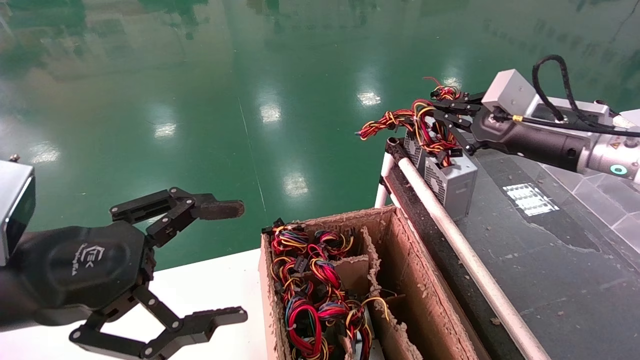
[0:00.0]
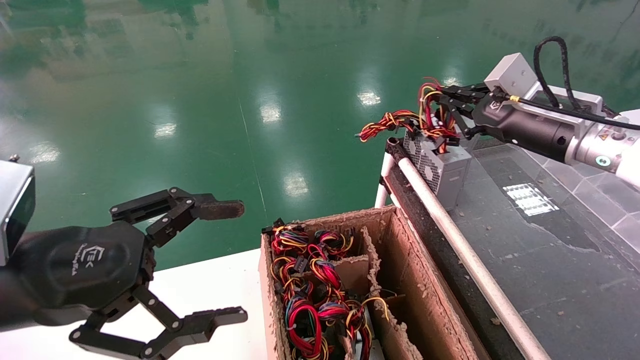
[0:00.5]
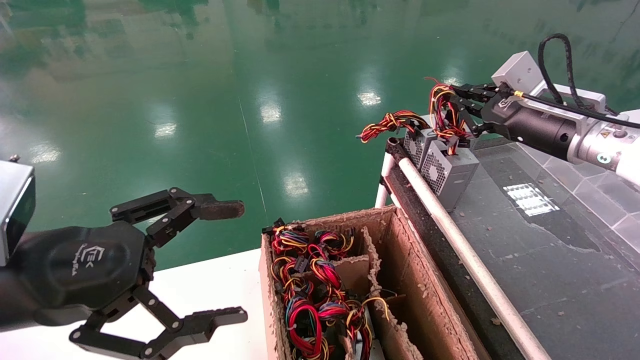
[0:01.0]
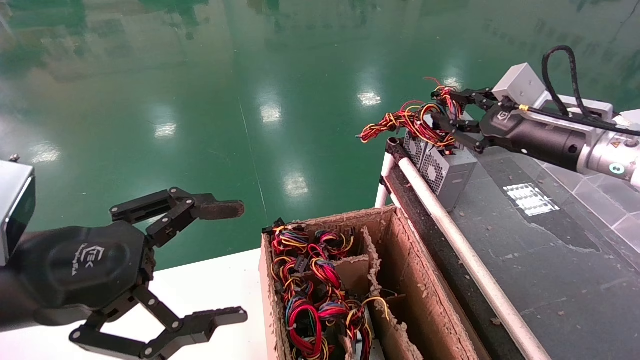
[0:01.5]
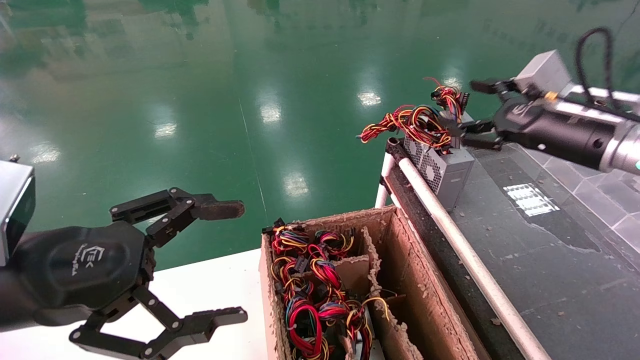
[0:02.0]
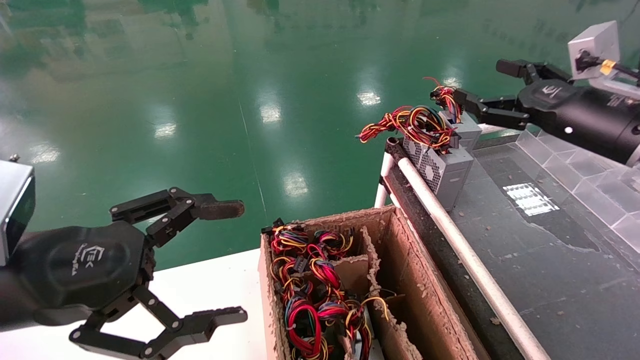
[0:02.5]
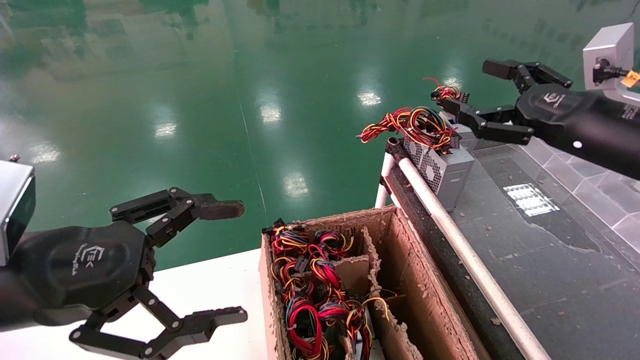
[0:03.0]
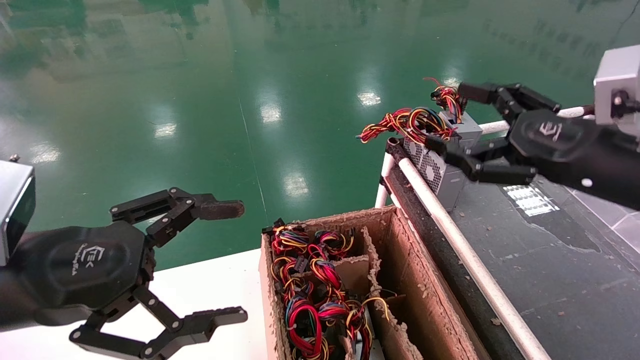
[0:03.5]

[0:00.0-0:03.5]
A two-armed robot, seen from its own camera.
0:00.0 to 0:02.0: The right gripper opens its fingers.
0:02.0 to 0:03.5: The right gripper goes some 10 cm backward.

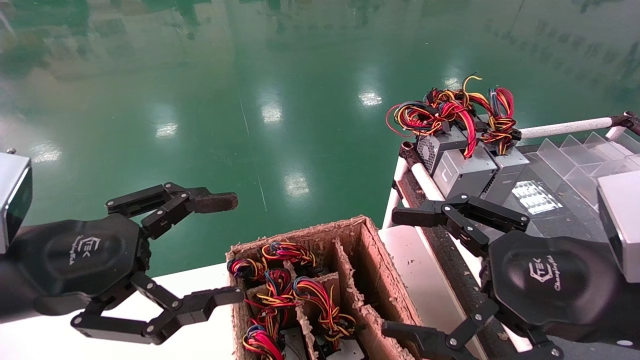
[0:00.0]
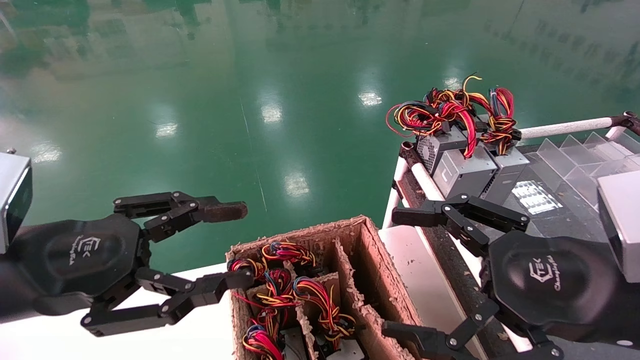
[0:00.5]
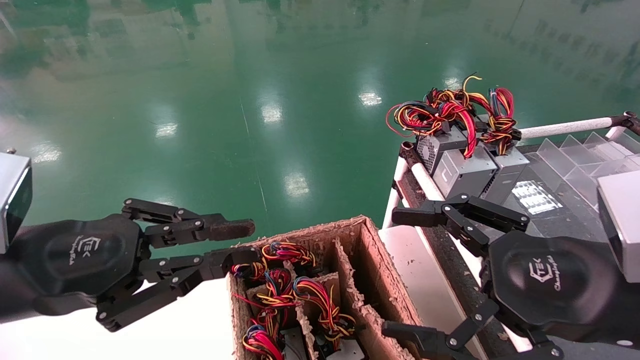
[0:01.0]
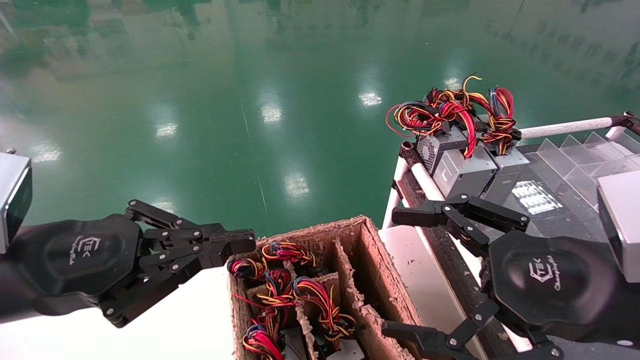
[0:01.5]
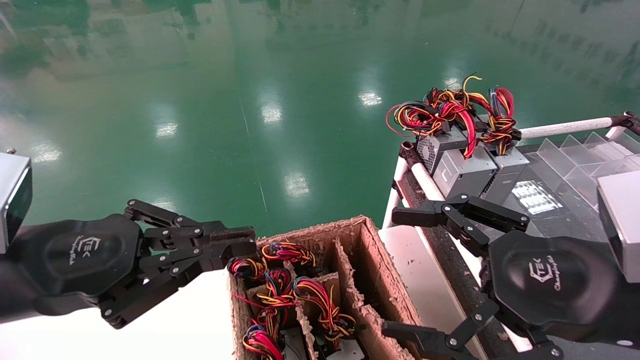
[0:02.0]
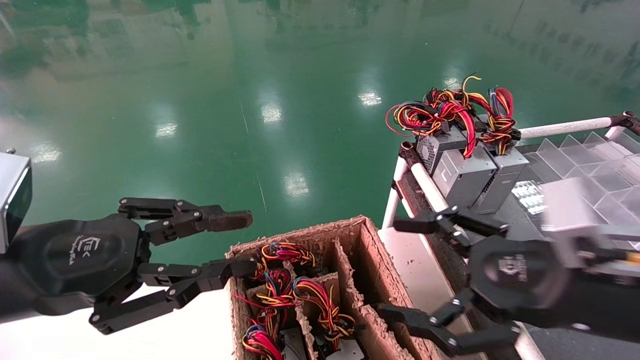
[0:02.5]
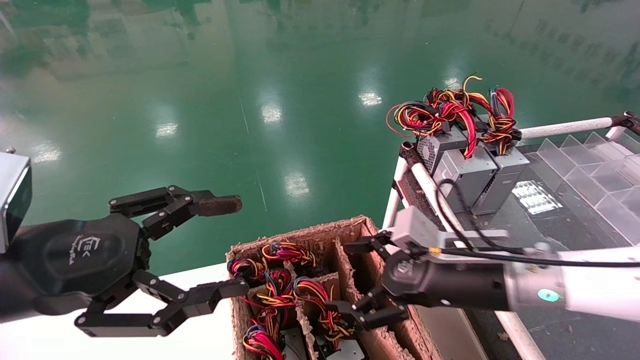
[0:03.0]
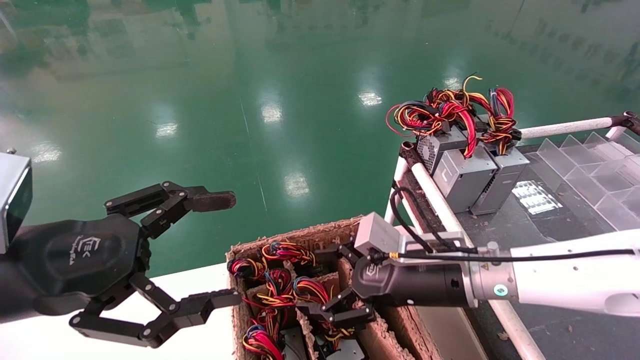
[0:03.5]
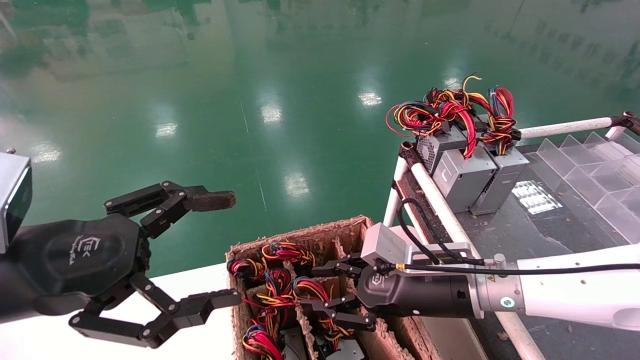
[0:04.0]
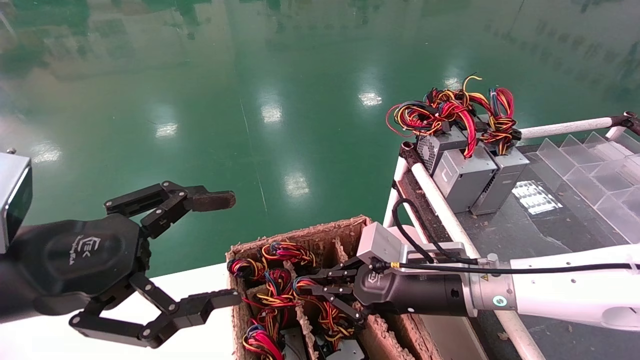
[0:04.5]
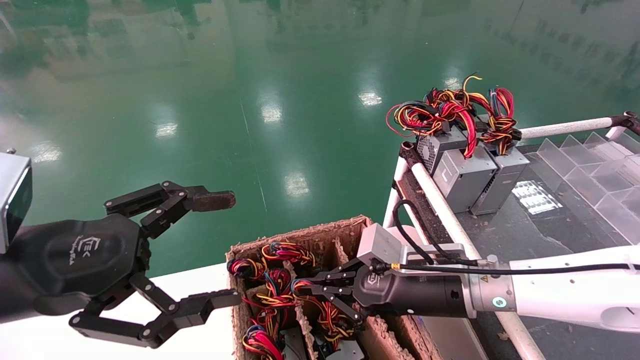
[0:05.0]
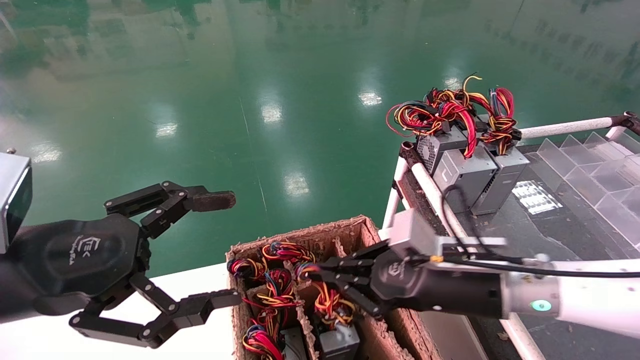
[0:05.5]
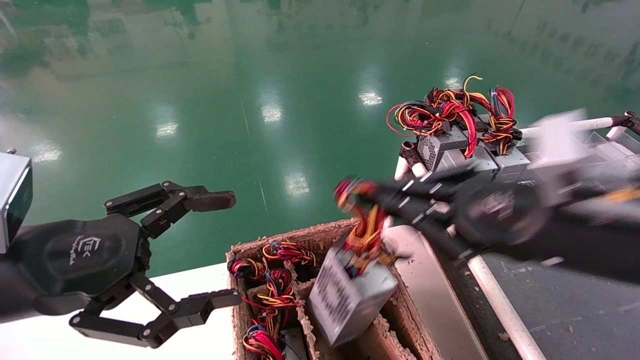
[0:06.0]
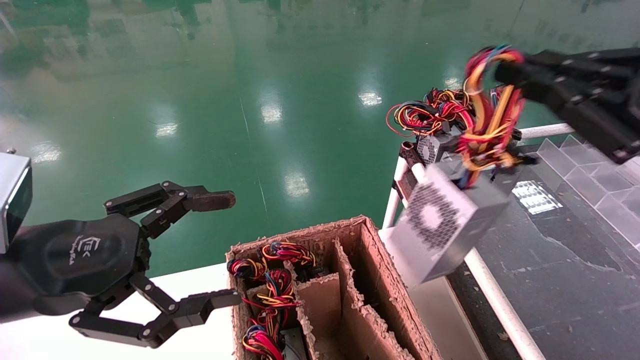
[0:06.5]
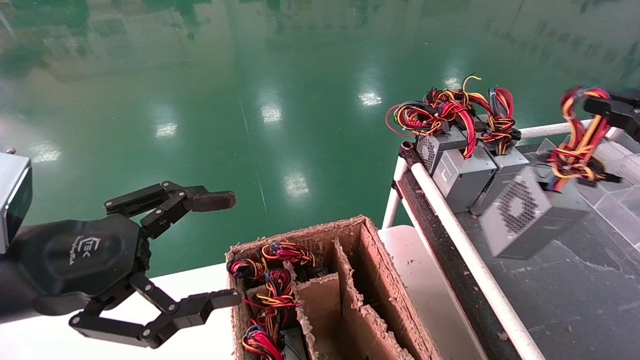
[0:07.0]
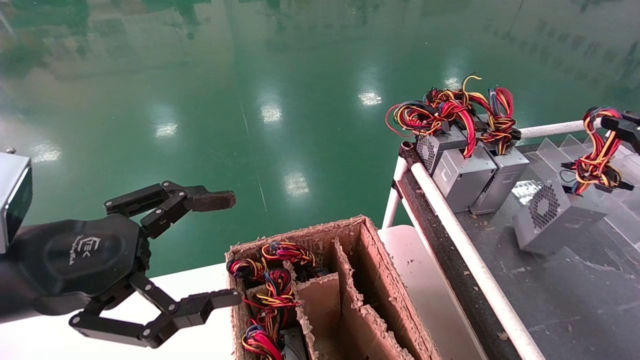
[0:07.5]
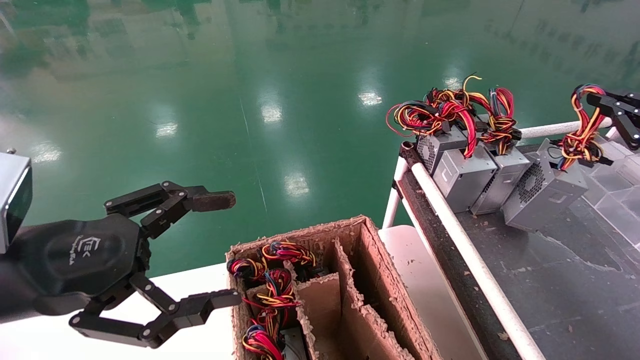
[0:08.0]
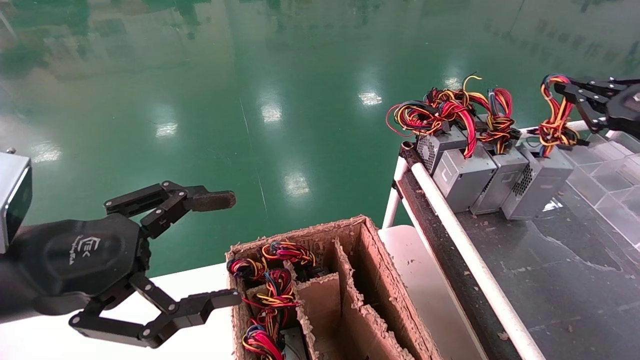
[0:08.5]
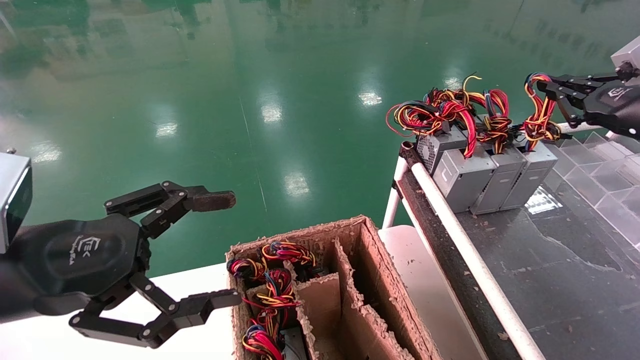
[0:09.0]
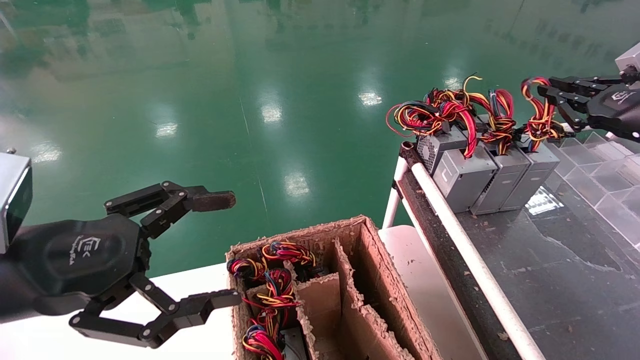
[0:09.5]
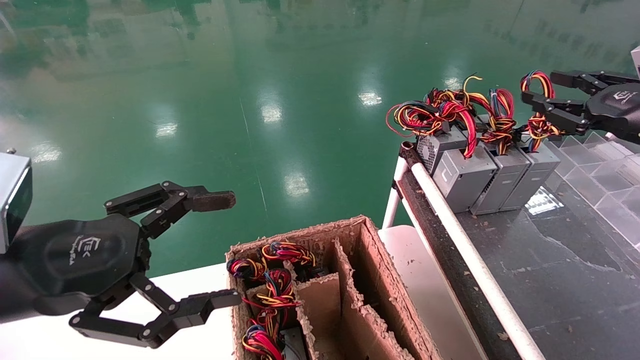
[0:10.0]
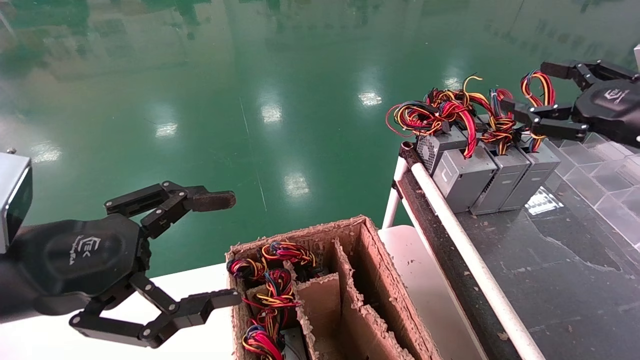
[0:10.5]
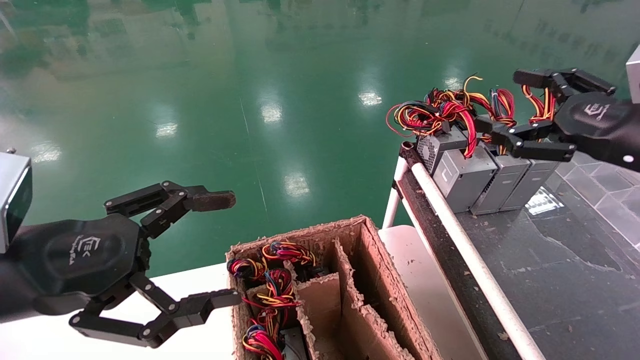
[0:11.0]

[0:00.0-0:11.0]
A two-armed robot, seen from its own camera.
Step, 0:02.0 to 0:04.5: Grab and lift the power supply from the large box.
Step, 0:05.0 to 0:09.5: Place the power supply on the operating table.
0:00.0 to 0:02.0: The left gripper closes up.
0:02.0 to 0:03.5: The left gripper opens. The right gripper heads forward, to the left and downward, covering about 20 cm.
0:03.5 to 0:05.5: The right gripper closes.
0:05.5 to 0:07.5: The right gripper goes roughly 30 cm to the right.
0:07.5 to 0:09.0: The right gripper goes roughly 10 cm forward.
0:09.0 to 0:11.0: The right gripper travels to the left and backward by roughly 10 cm, and opens.
